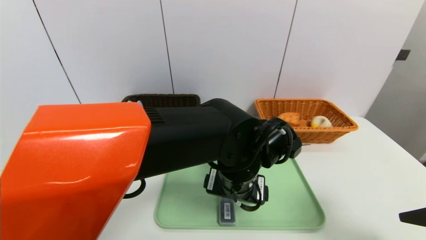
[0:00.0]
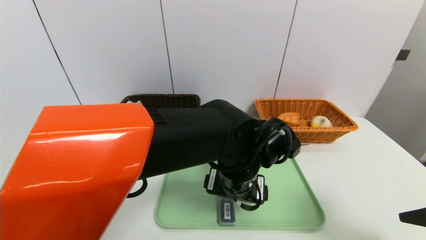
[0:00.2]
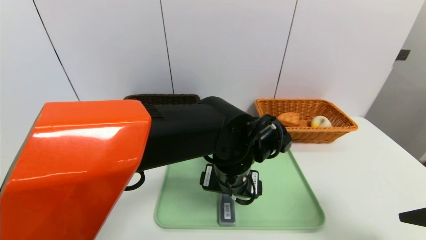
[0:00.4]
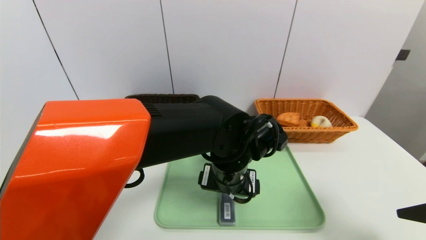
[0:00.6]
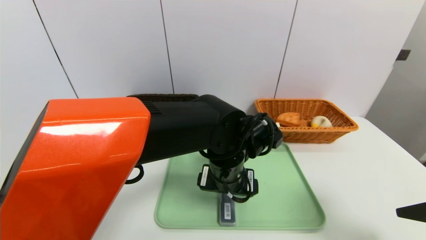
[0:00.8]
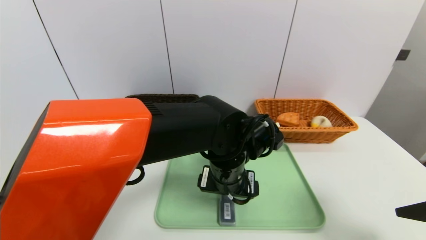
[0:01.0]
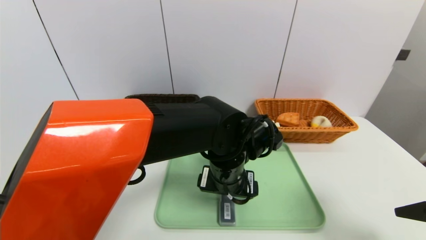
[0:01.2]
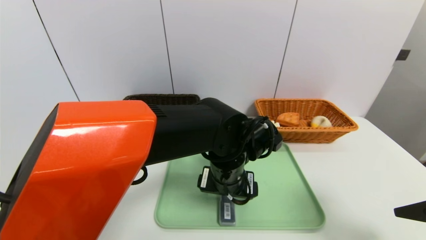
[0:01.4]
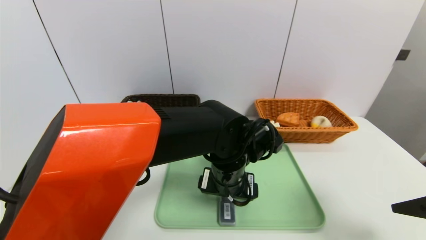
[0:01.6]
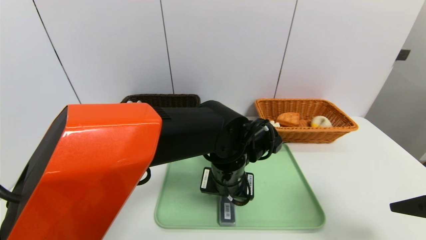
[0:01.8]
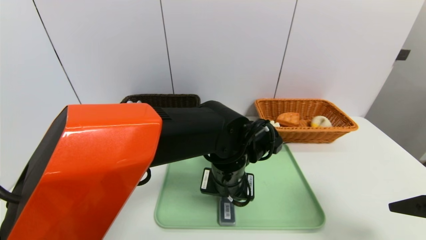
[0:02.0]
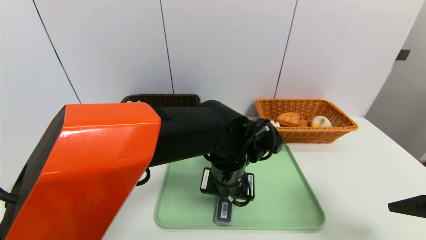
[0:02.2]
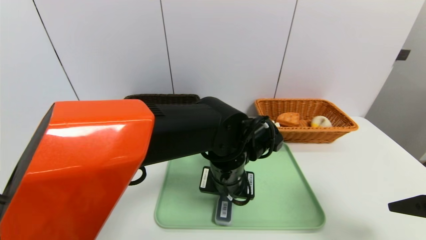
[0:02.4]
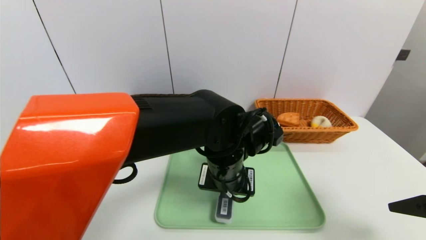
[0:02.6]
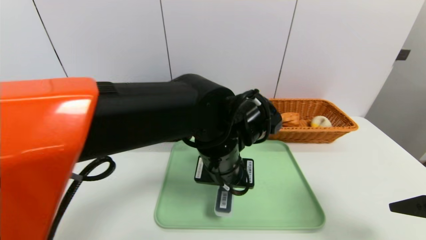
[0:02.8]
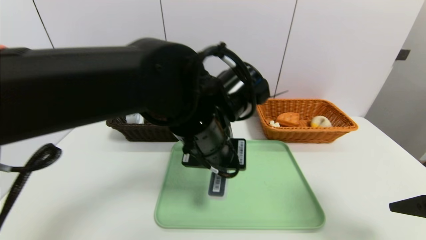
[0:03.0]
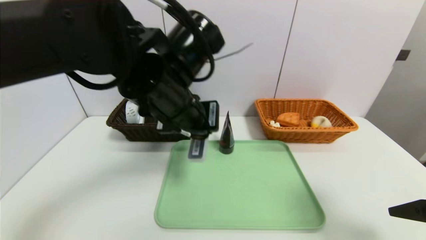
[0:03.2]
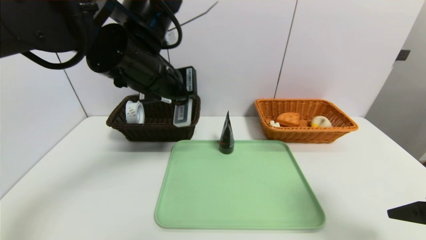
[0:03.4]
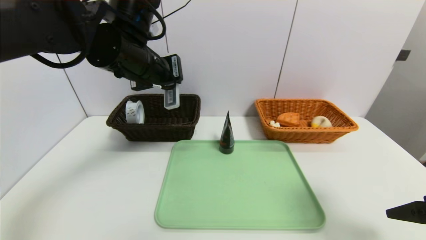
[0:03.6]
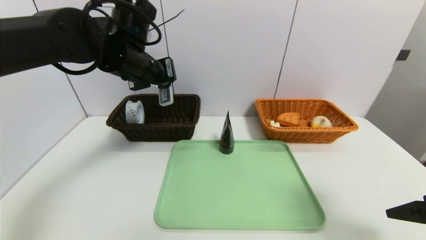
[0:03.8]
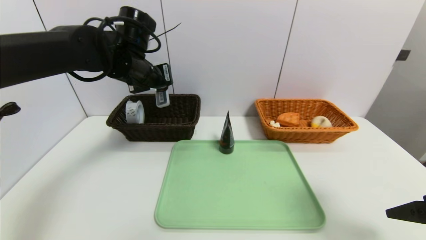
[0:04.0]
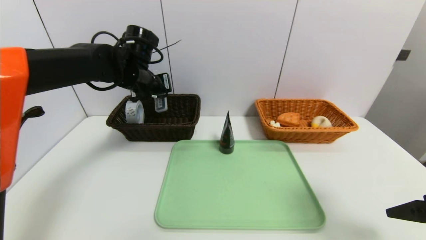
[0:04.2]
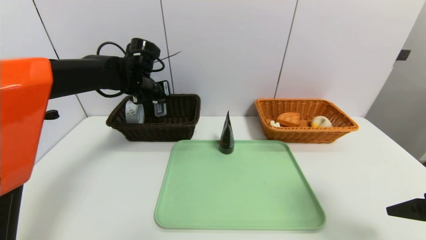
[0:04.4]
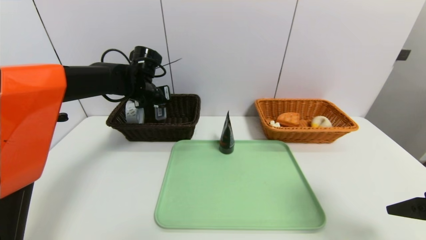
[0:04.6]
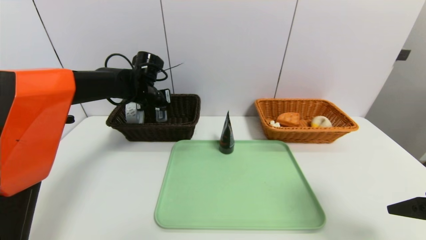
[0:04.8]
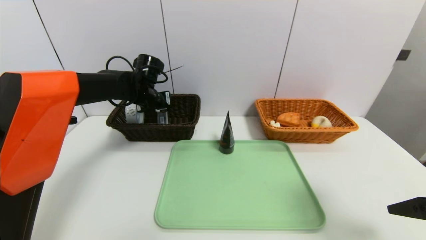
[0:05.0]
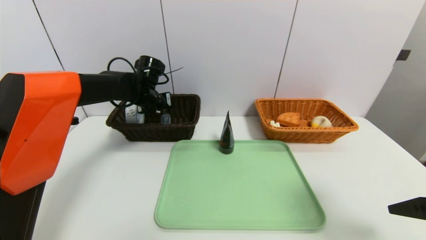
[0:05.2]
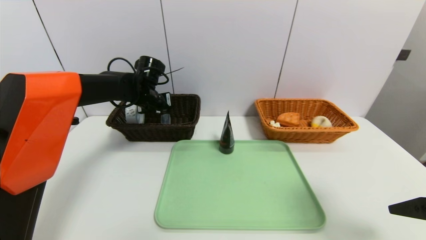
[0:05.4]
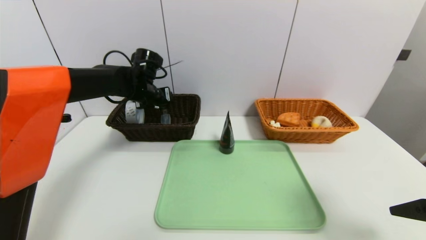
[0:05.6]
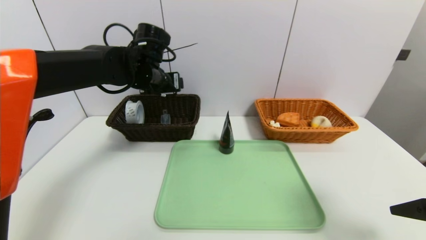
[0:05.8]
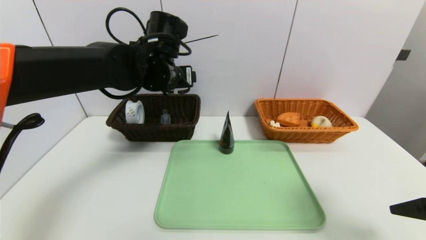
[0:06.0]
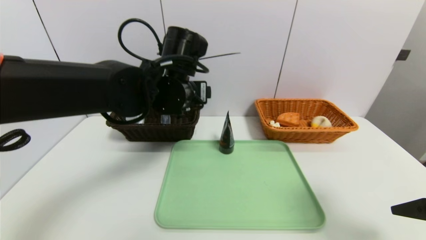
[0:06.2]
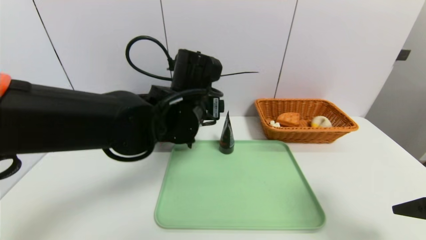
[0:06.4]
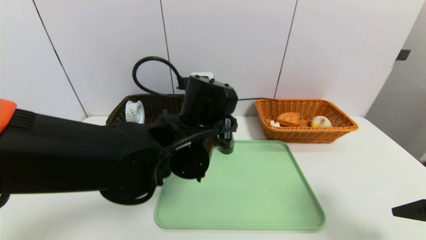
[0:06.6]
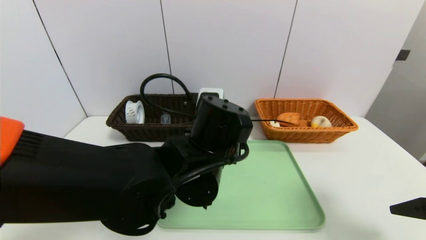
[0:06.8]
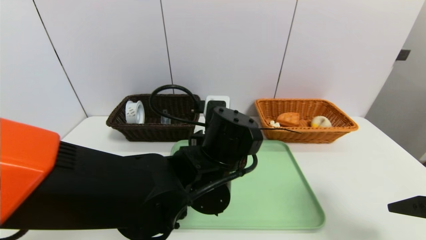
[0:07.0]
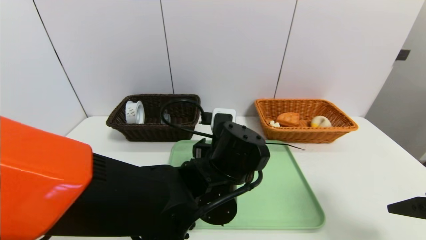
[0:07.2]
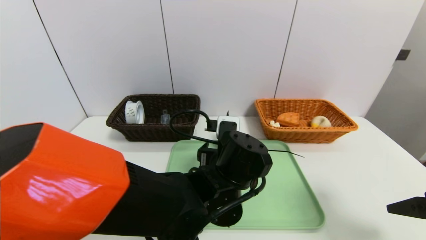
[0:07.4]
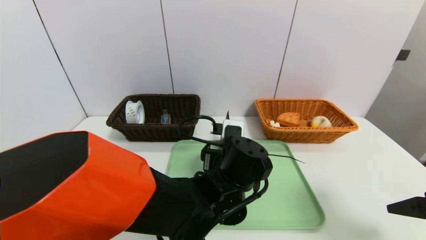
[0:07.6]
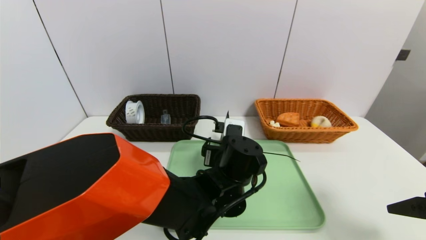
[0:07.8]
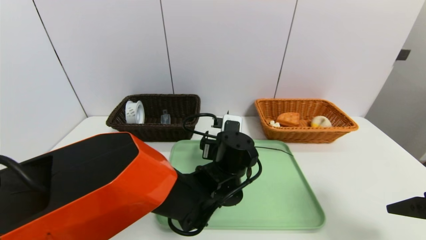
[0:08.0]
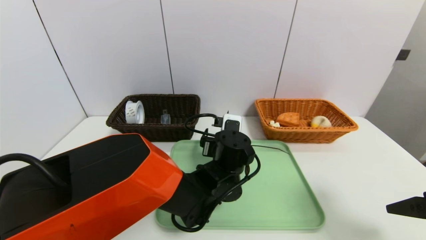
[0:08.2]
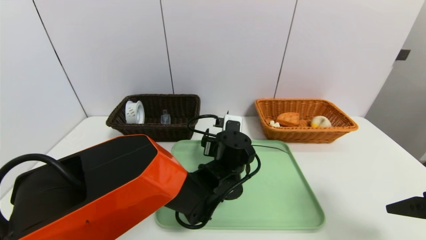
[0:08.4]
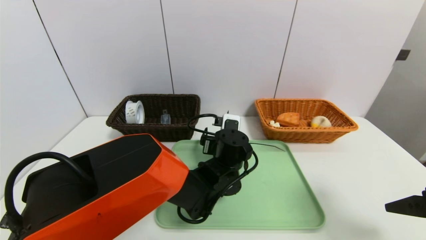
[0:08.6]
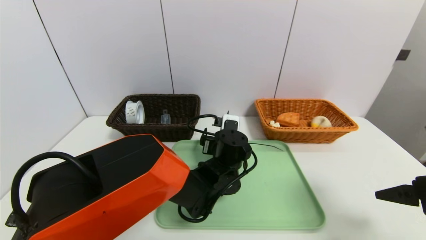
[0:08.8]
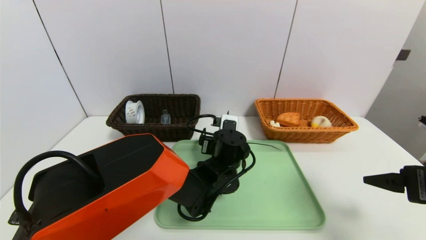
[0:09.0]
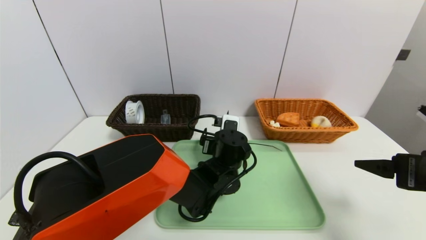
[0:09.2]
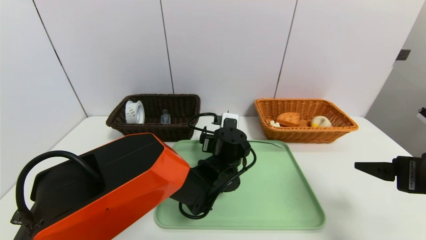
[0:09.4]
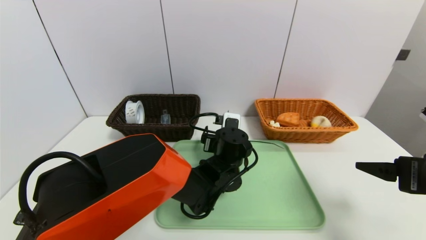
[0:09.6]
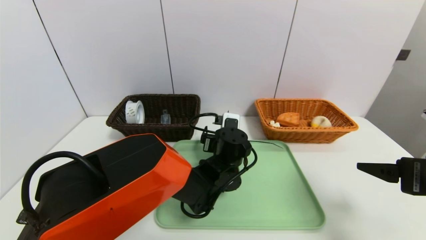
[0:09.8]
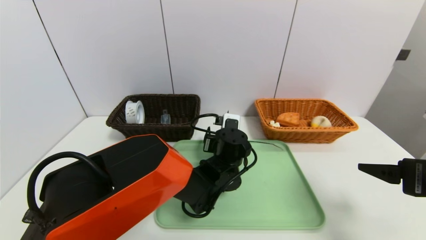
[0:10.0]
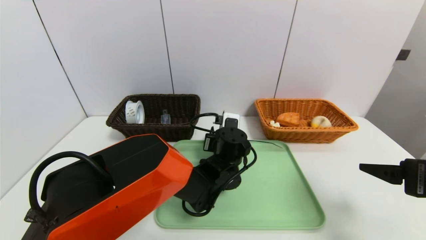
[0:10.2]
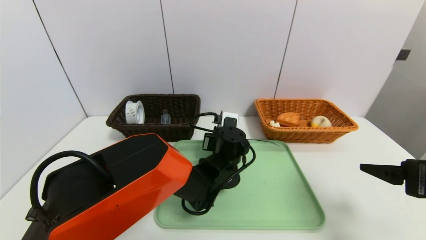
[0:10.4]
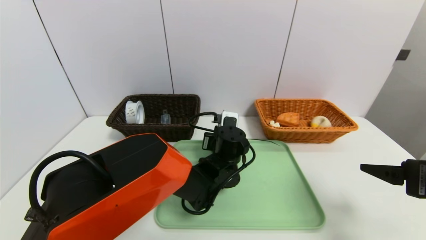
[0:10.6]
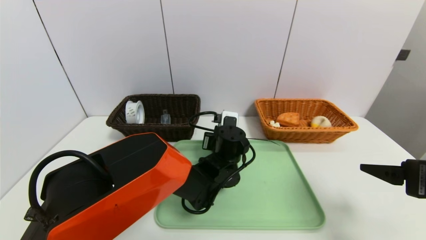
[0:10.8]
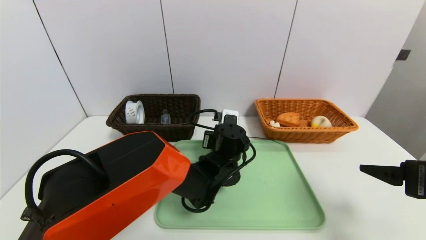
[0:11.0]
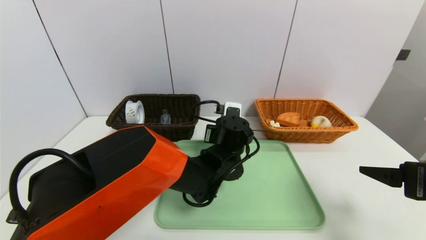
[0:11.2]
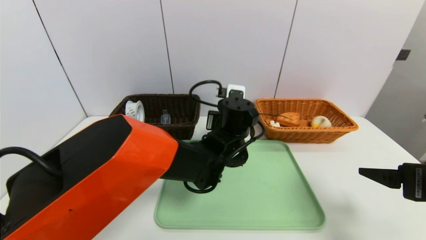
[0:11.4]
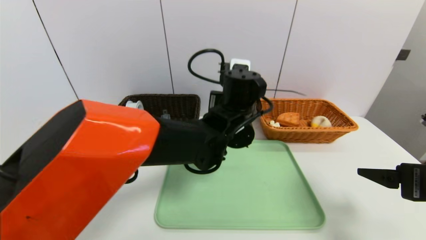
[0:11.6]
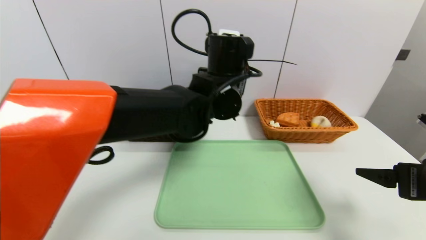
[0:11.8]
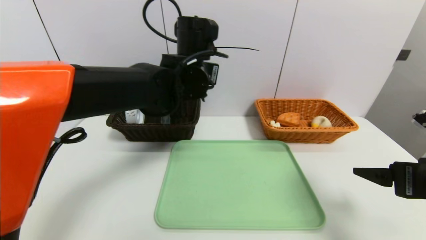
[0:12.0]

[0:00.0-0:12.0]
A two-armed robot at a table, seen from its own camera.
Task of the whole recording: place the food in the right basket with the right gripper, and place the non food items in the left basket with the left gripper.
Step, 0:00.0 to 0:05.6: Grasp the compass and put it in the left basket.
0:00.0 to 0:01.6: There are only small adjustments of the grippers.
0:01.6 to 0:03.0: The left gripper travels upward by roughly 10 cm, and closes its fingers.
0:03.0 to 0:04.4: The left gripper shifts about 25 cm forward and to the left.
0:04.4 to 0:06.0: The left gripper is displaced to the right and backward by about 10 cm, and opens up.
0:06.0 to 0:07.6: The left gripper heads downward, to the right and backward, covering about 25 cm.
0:07.6 to 0:09.0: The left gripper is displaced forward by approximately 10 cm.
0:09.0 to 0:10.4: The left gripper closes up.
0:10.4 to 0:12.0: The left gripper goes roughly 20 cm upward.

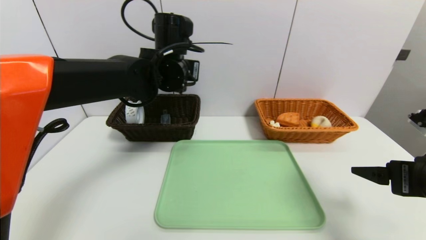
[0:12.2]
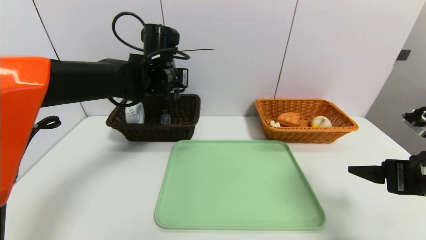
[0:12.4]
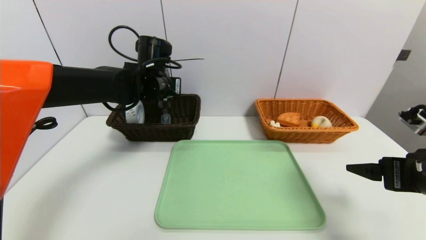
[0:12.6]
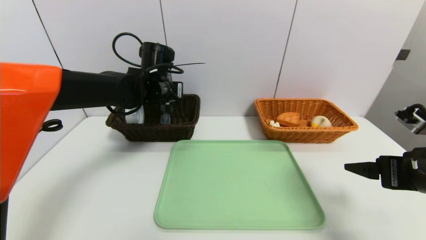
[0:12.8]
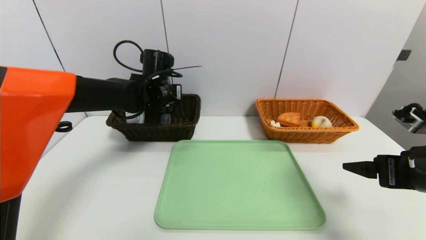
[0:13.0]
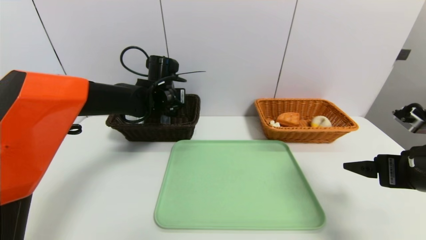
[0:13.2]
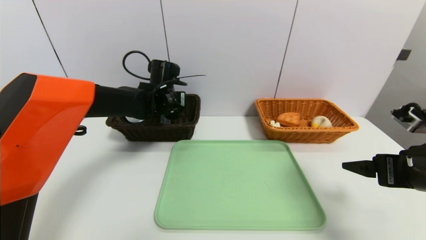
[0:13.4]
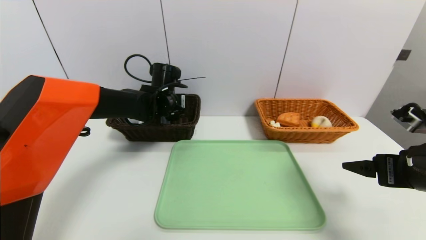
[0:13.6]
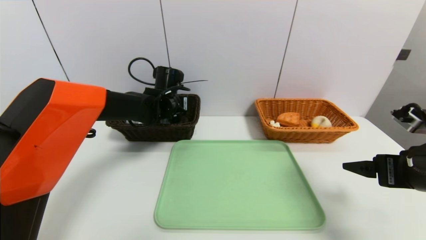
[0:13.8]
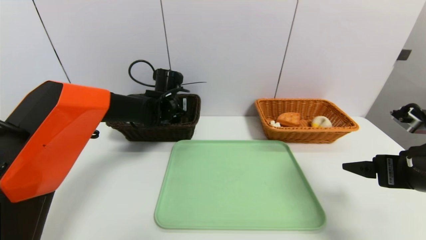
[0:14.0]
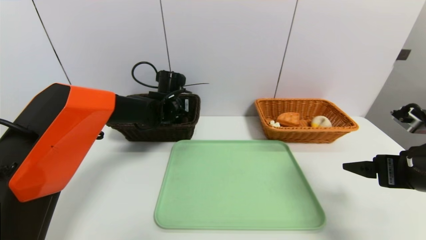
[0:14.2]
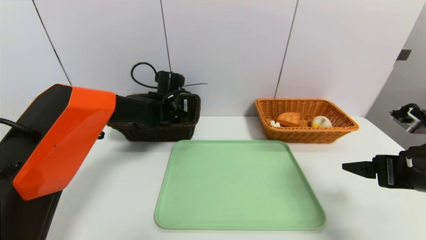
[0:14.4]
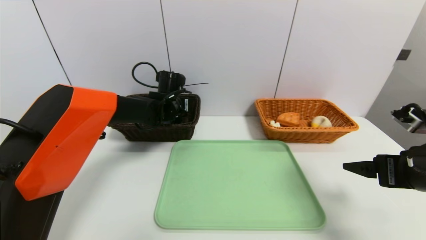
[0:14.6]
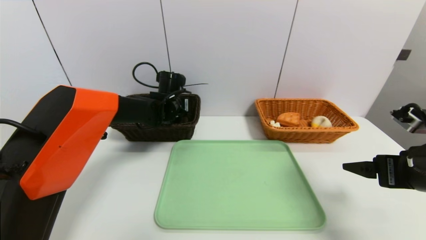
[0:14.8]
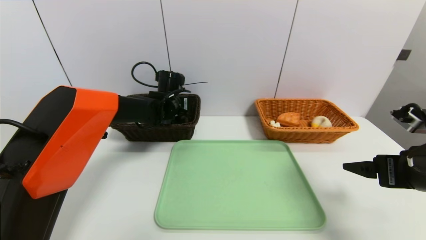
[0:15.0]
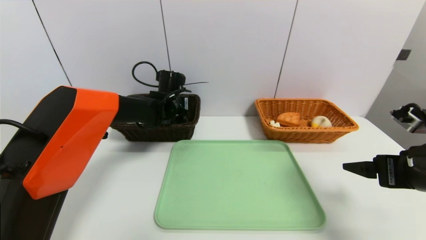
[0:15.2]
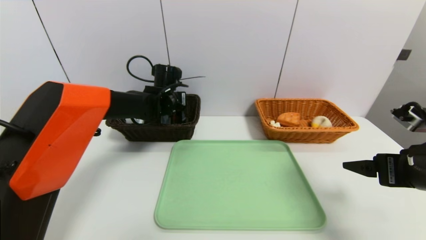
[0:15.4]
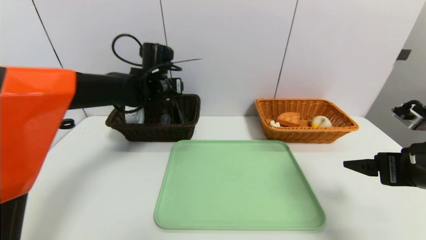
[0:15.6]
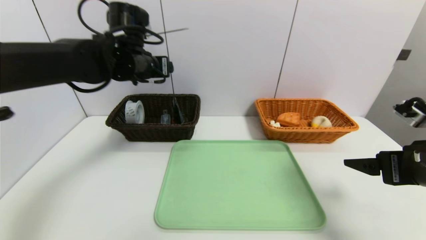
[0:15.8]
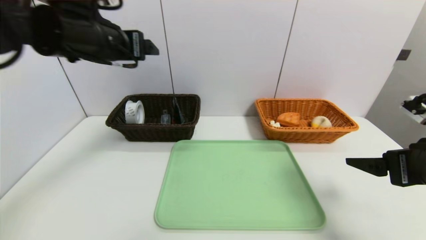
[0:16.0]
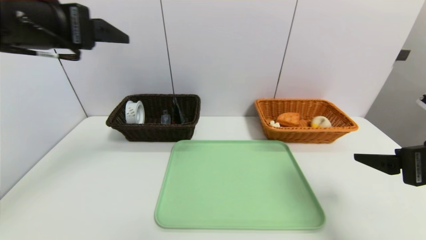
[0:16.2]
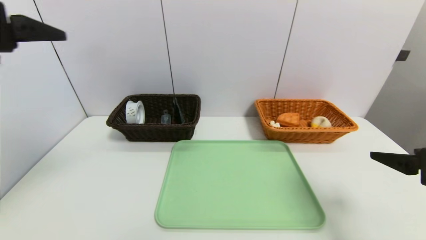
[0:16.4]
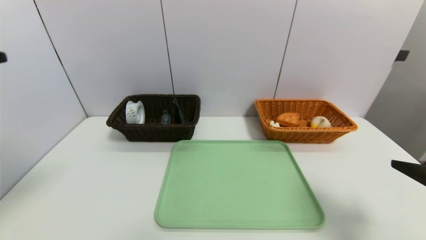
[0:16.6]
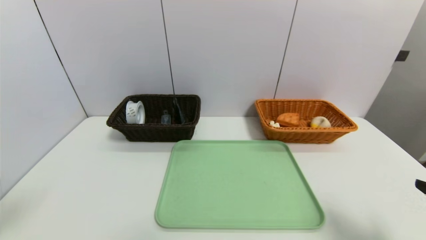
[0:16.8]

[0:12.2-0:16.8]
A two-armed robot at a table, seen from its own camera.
Task of the whole recording: place the food in the right basket with the right gripper, and place the non food items in the left basket with the left gripper.
Step, 0:12.2 to 0:15.6: Grasp the soft cleanser and put it in the left basket.
0:12.2 to 0:13.8: The left gripper travels downward and forward by approximately 10 cm.
0:13.8 to 0:15.2: The left gripper opens up.
0:15.2 to 0:16.8: The left gripper heads backward and to the left, covering about 50 cm, and opens. Meanwhile the right gripper travels backward by some 10 cm.
